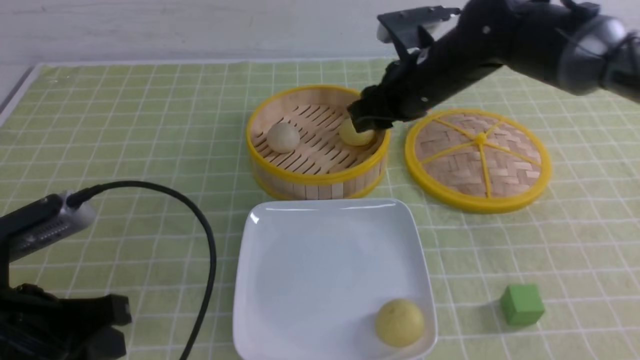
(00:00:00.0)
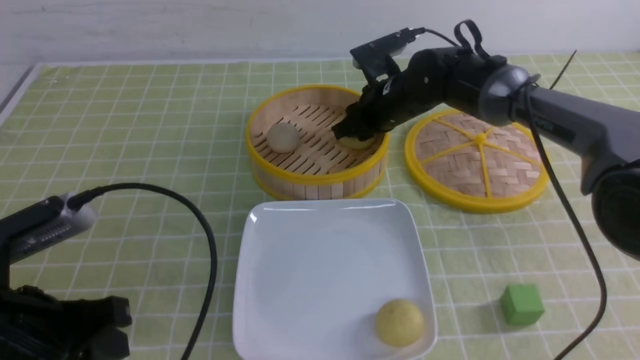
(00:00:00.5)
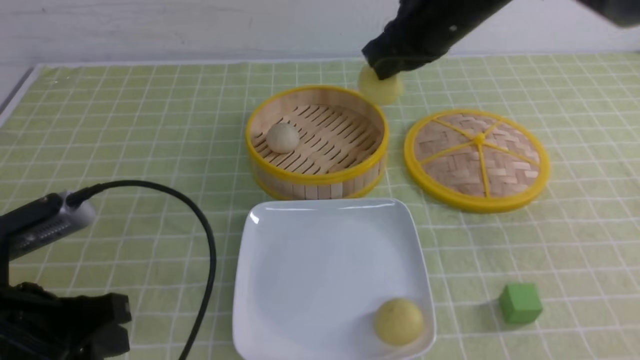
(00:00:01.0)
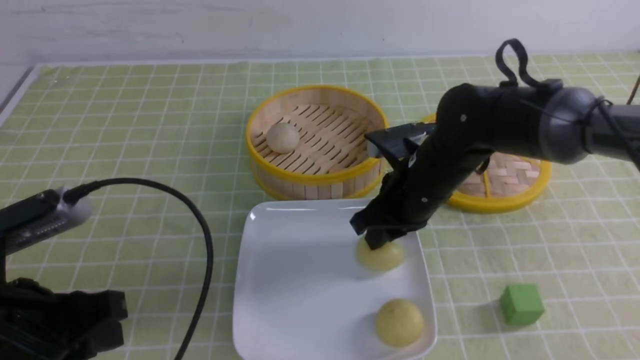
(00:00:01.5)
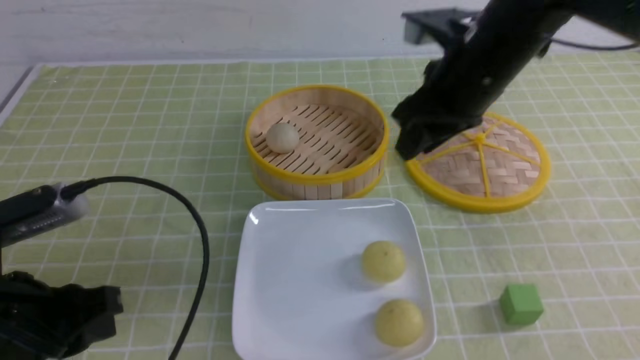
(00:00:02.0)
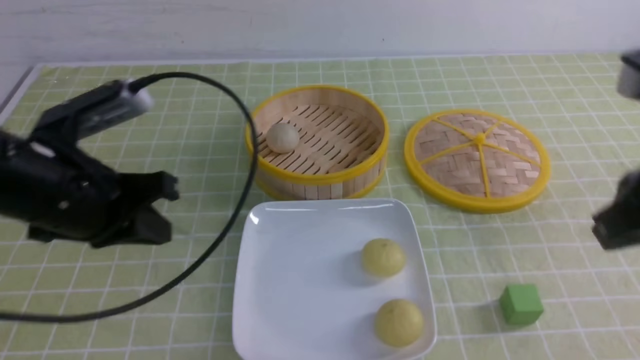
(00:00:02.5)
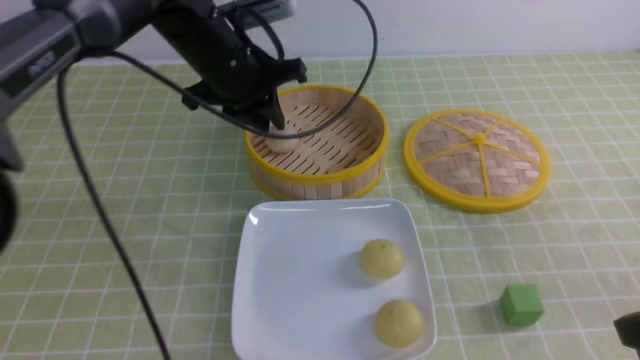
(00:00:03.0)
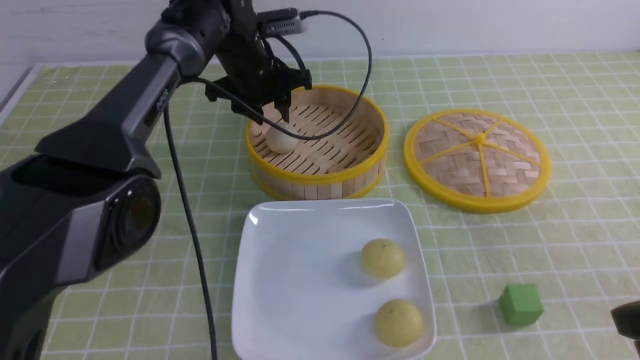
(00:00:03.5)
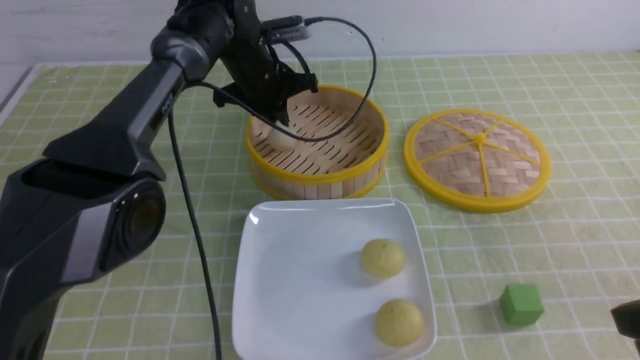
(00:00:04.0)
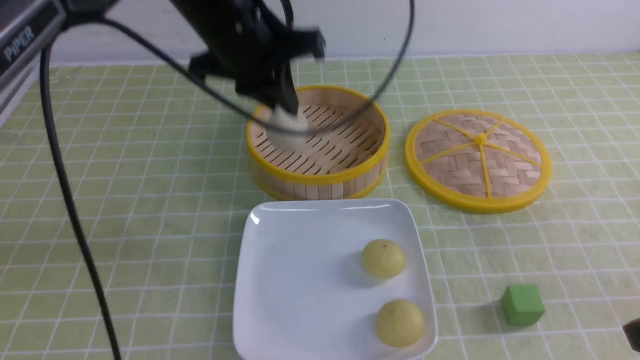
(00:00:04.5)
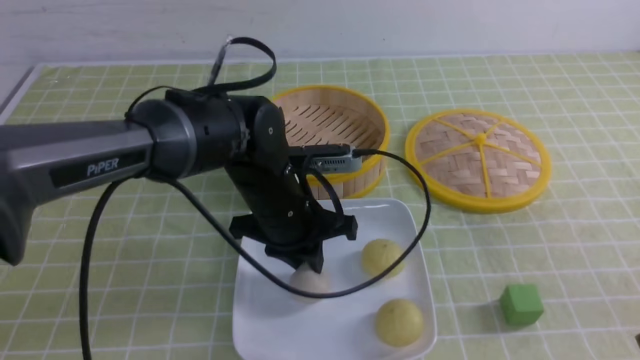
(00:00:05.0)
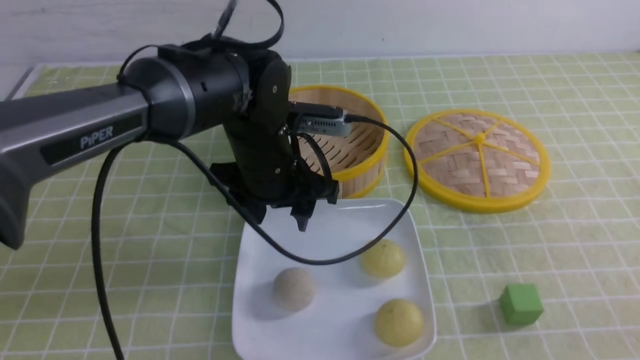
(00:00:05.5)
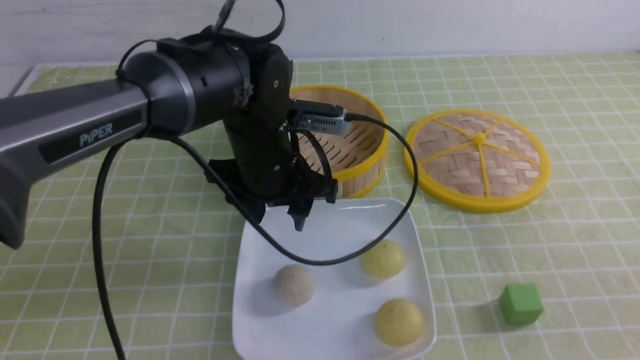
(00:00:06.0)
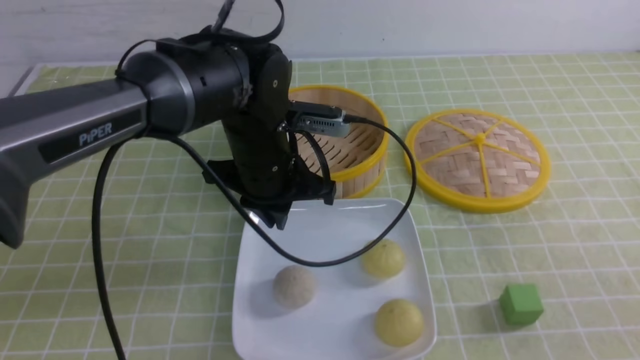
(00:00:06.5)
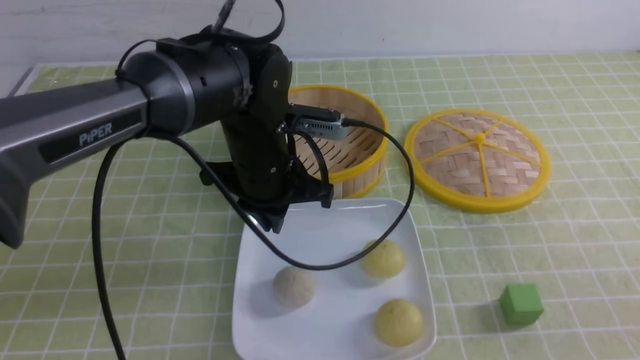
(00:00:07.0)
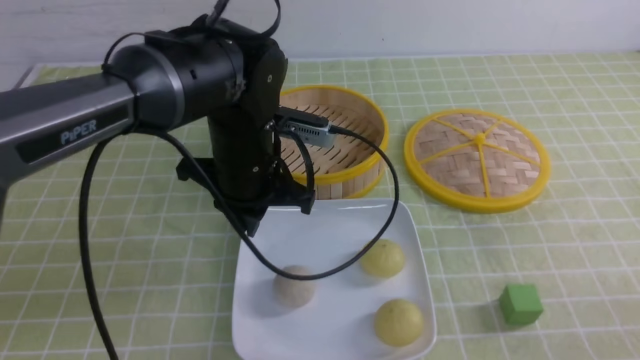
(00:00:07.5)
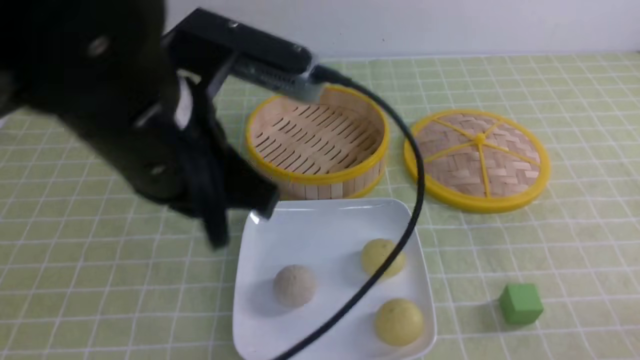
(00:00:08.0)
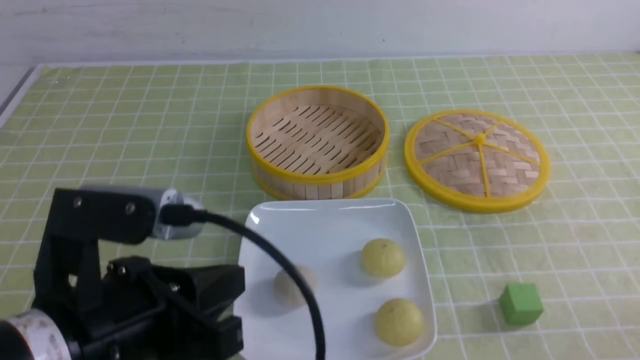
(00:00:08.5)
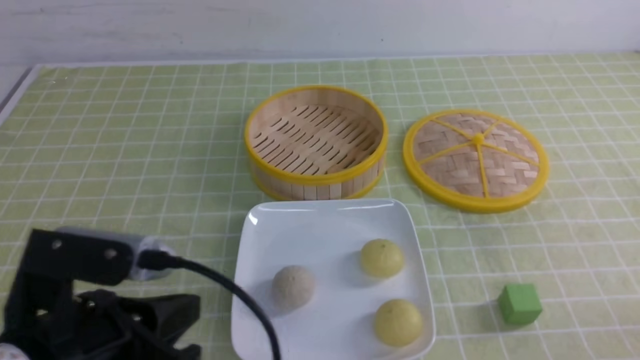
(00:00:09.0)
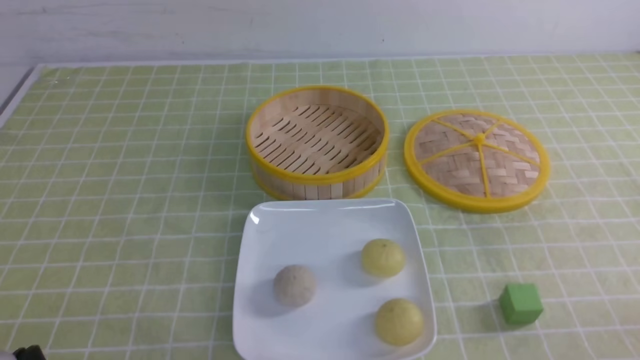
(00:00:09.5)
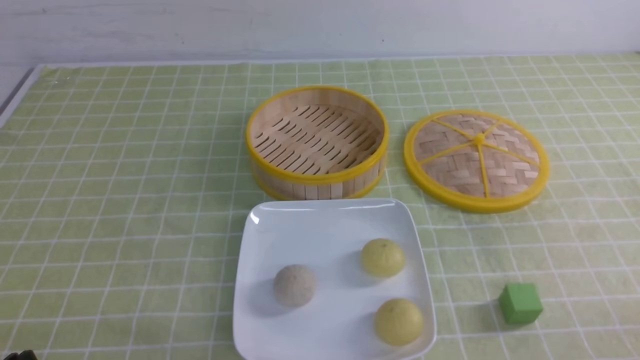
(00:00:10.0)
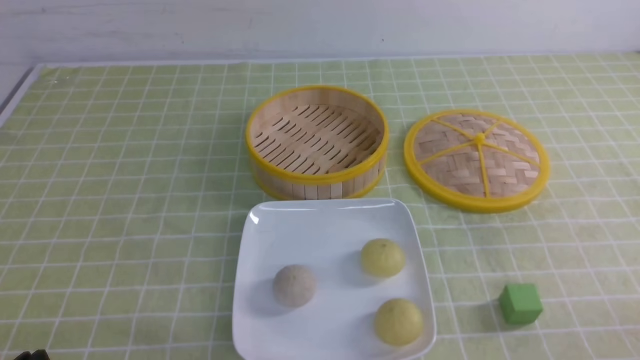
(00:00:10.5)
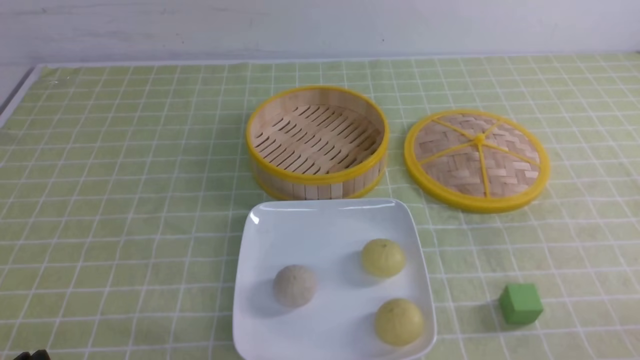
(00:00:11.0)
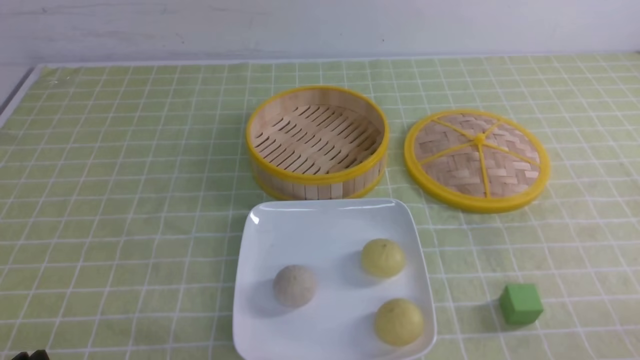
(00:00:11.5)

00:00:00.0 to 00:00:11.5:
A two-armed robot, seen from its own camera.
Step, 00:00:01.0 to 00:00:01.5: use the right arm to put the steamed stuffed bun into the plate.
Step, 00:00:02.0 to 00:00:03.5: use the left arm to grab the steamed stuffed bun that is closest to it.
Step, 00:00:04.0 to 00:00:05.0: use the left arm to put the steamed stuffed bun into the plate.
00:00:00.0 to 00:00:02.0: The right gripper goes about 10 cm backward and upward, and closes and opens again.
00:00:02.0 to 00:00:04.0: The right gripper moves backward and to the right, some 25 cm, and closes its fingers. Meanwhile the left gripper is displaced forward and to the right by roughly 40 cm.
00:00:04.0 to 00:00:06.0: The left gripper travels backward by approximately 15 cm, and opens, while the right gripper shifts approximately 5 cm backward.
00:00:06.0 to 00:00:07.5: The right gripper goes approximately 5 cm downward. Meanwhile the left gripper closes up.
00:00:07.5 to 00:00:09.5: The left gripper heads backward and to the left, covering roughly 30 cm.
